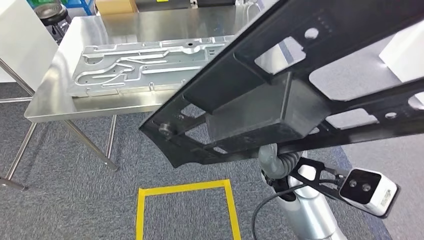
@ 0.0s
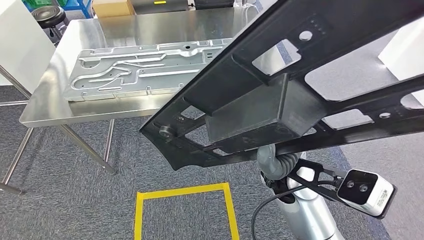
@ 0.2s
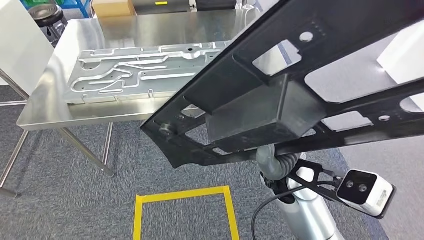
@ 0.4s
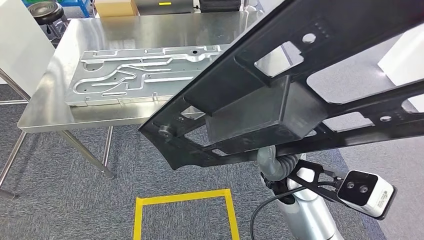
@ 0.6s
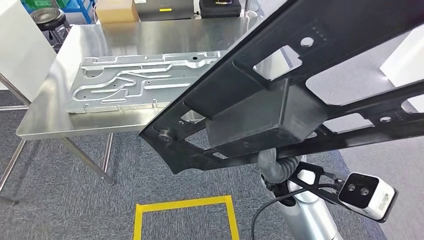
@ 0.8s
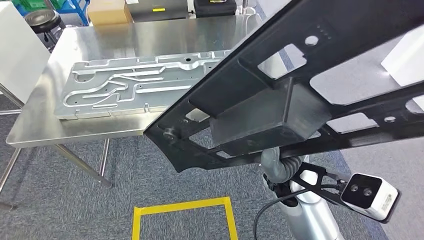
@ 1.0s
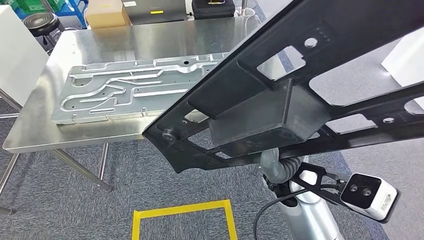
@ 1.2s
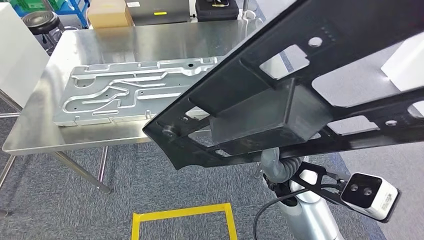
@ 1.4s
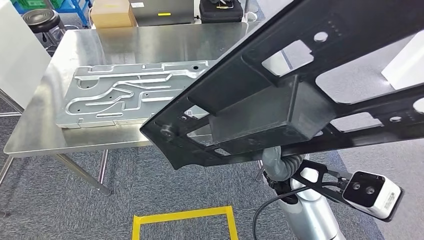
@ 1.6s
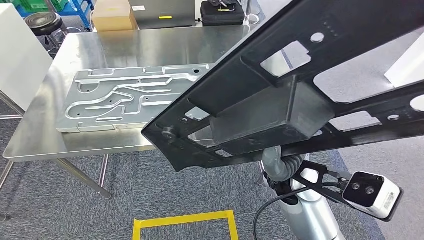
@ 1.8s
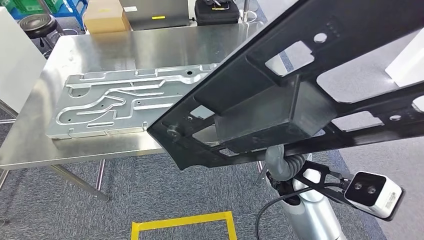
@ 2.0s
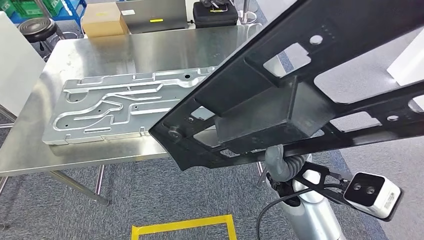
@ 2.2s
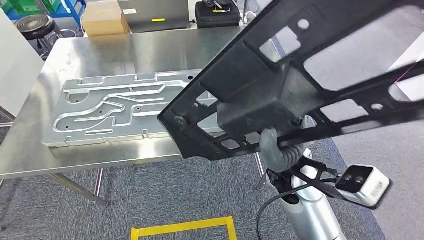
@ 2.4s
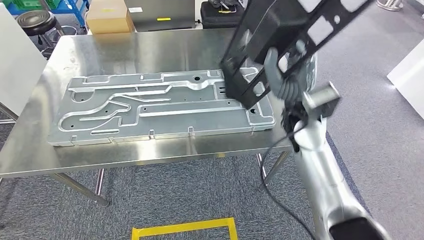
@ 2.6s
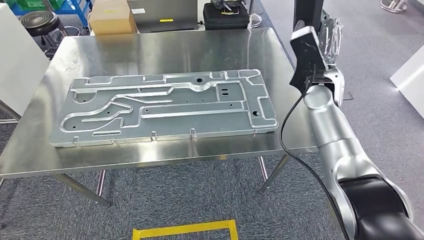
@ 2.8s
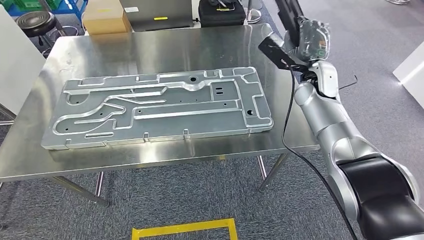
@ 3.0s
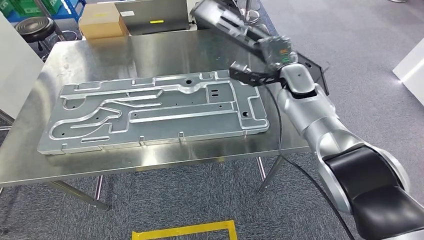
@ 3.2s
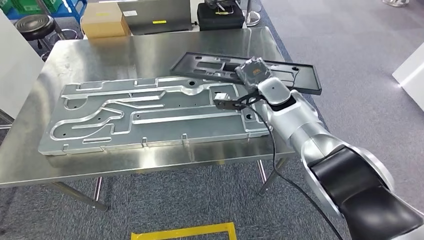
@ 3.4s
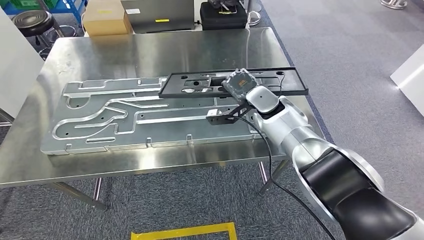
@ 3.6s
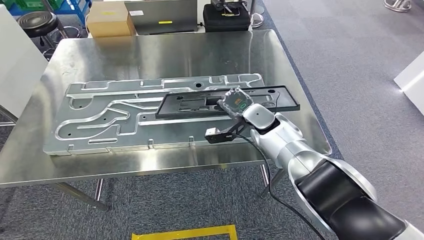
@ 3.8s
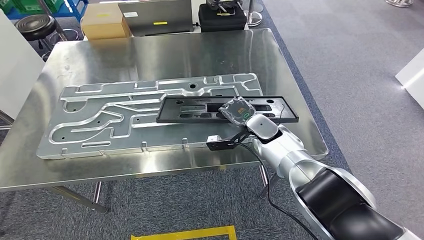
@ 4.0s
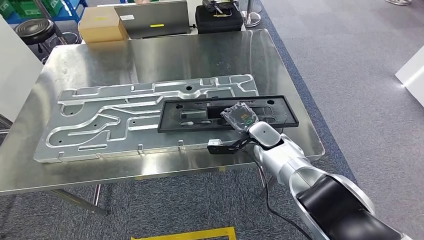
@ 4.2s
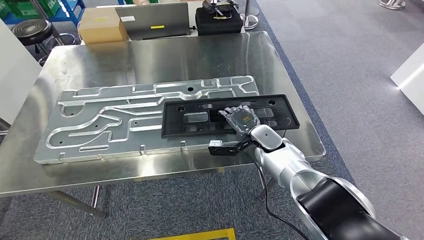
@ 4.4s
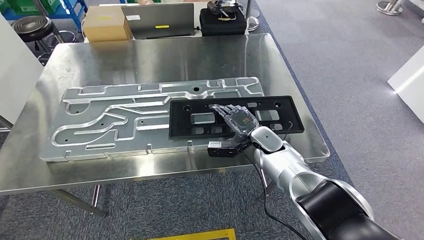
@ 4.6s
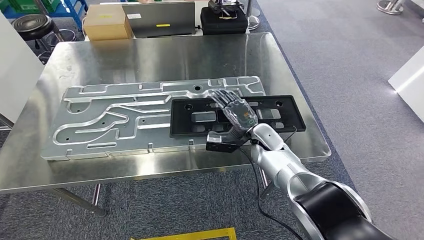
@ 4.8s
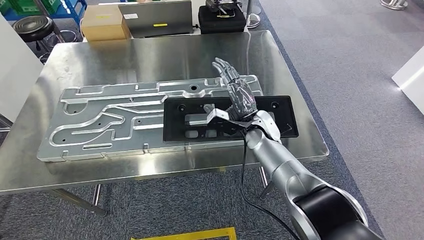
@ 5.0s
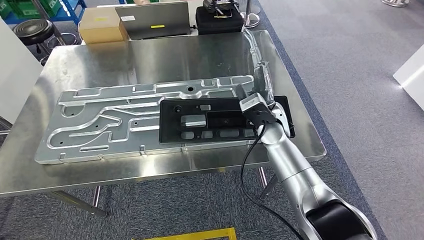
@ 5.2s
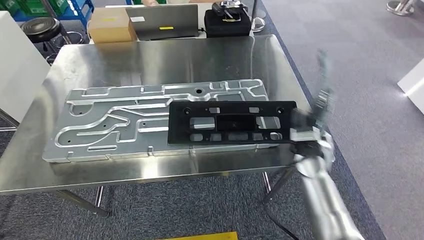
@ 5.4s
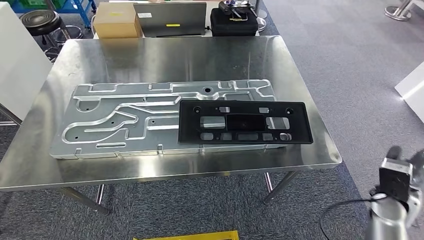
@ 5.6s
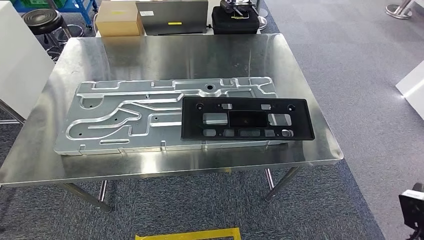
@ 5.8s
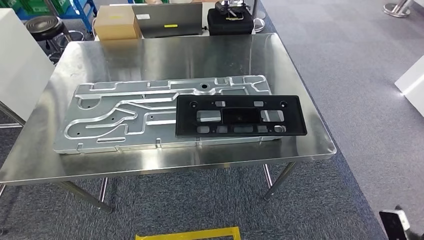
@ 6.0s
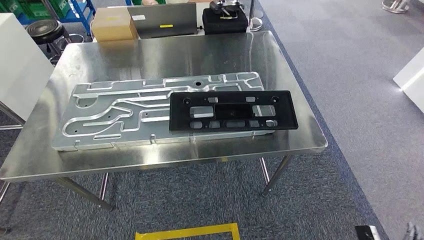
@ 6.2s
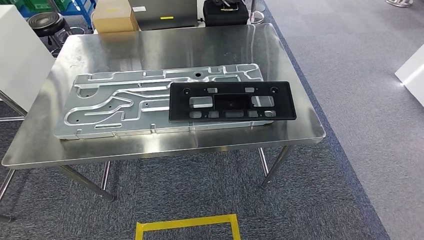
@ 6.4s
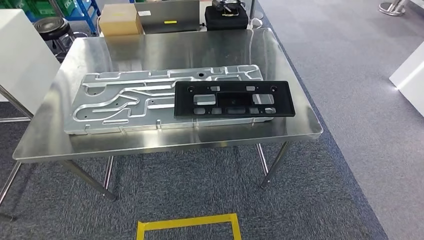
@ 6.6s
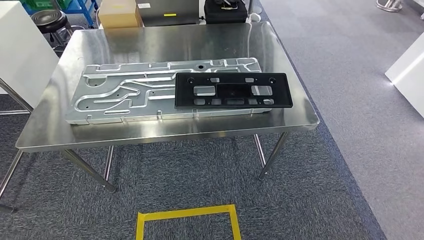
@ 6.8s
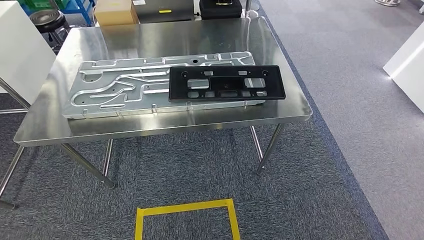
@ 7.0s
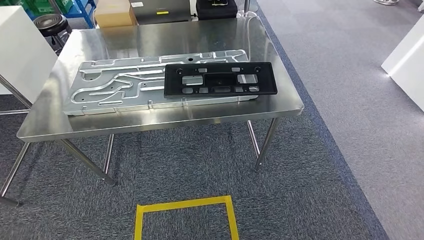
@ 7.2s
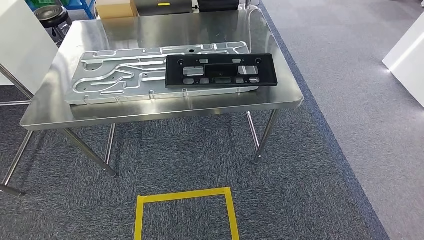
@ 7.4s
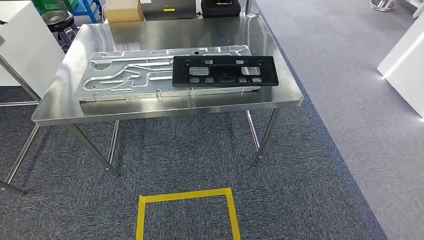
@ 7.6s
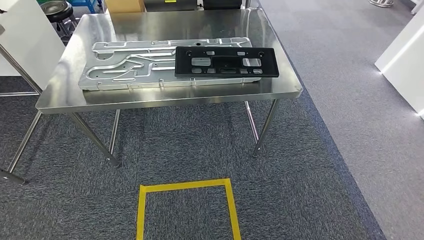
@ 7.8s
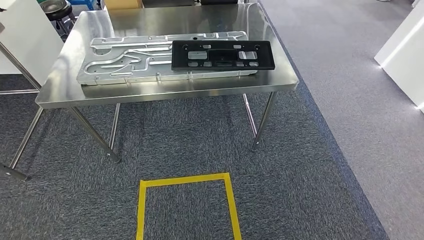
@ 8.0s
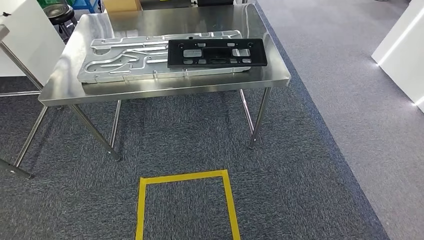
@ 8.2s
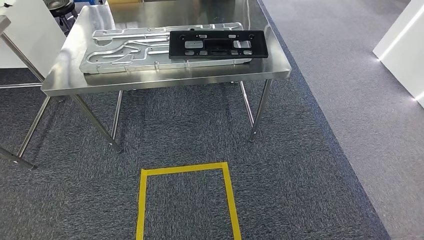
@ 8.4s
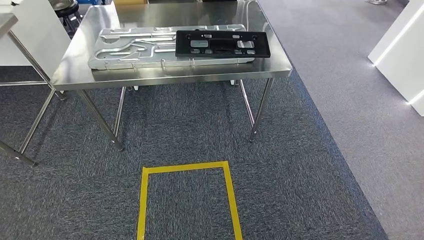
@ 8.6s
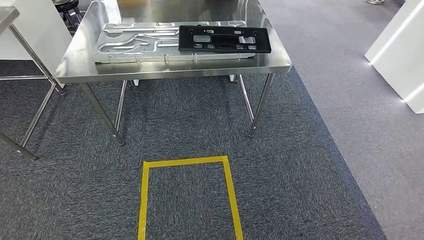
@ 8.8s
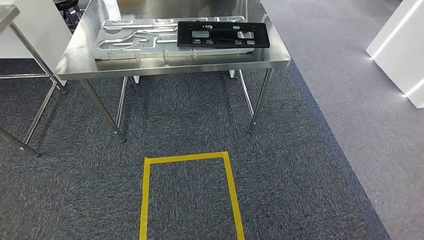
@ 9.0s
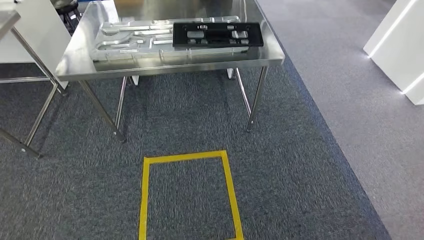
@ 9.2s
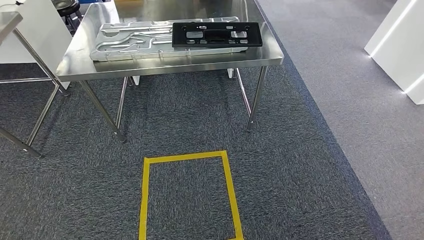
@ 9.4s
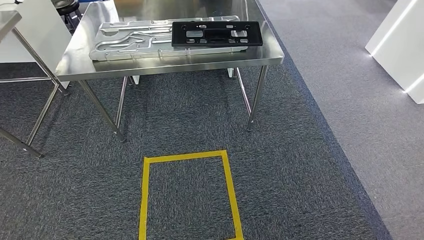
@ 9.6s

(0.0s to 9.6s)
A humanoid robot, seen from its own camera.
Step, 0.2s - 5.8s: Insert the large material into the corresponding slot on the workbench.
Step, 7.0s - 9.6s: Return to the initial position at the shelf.
